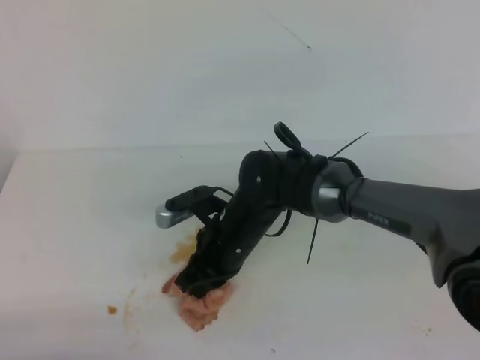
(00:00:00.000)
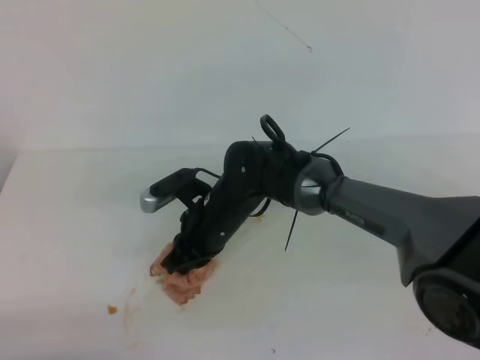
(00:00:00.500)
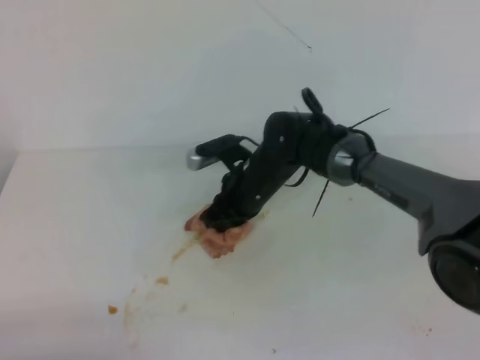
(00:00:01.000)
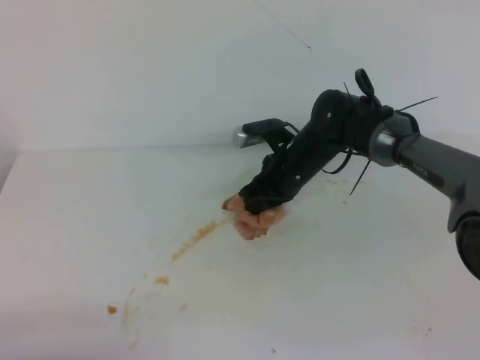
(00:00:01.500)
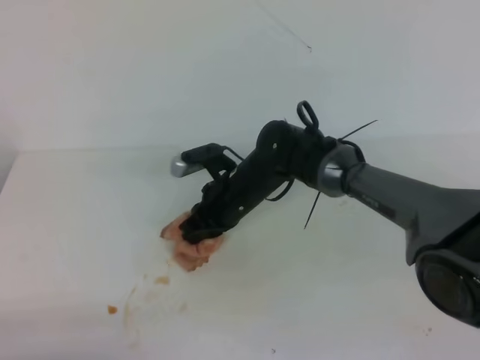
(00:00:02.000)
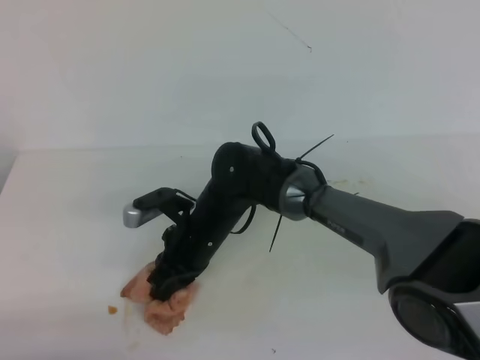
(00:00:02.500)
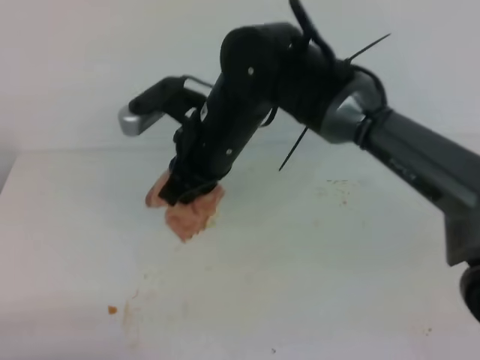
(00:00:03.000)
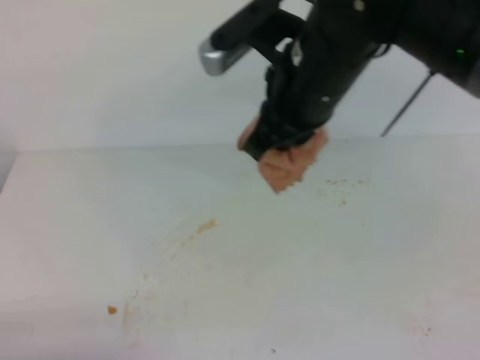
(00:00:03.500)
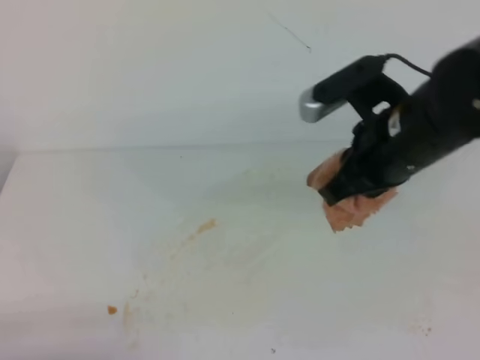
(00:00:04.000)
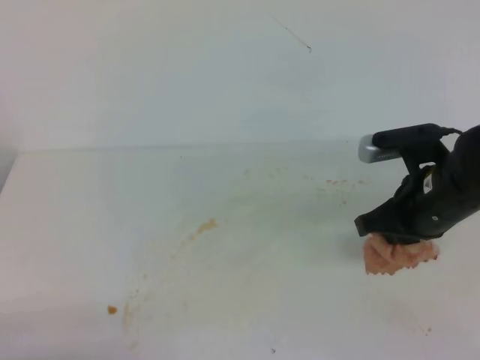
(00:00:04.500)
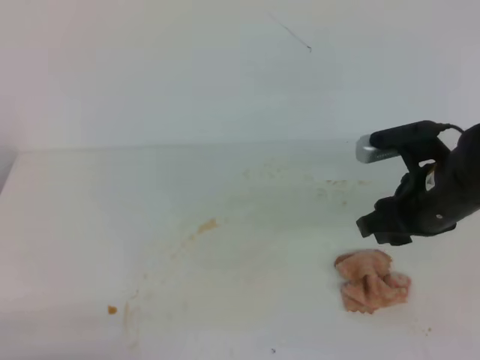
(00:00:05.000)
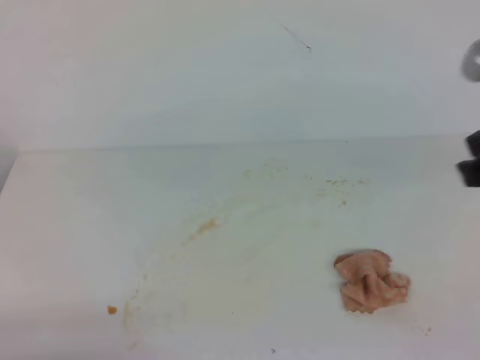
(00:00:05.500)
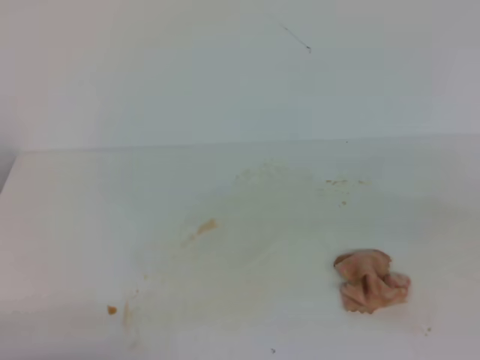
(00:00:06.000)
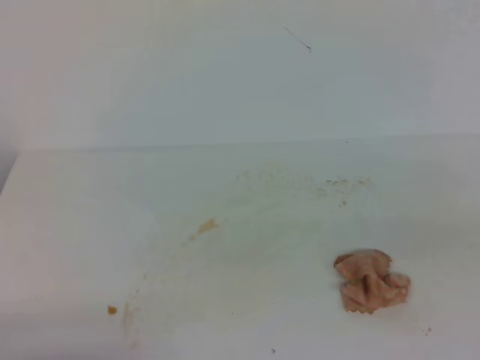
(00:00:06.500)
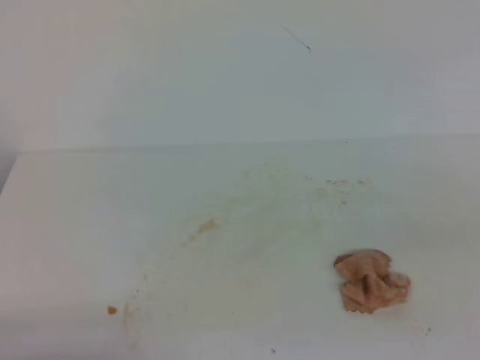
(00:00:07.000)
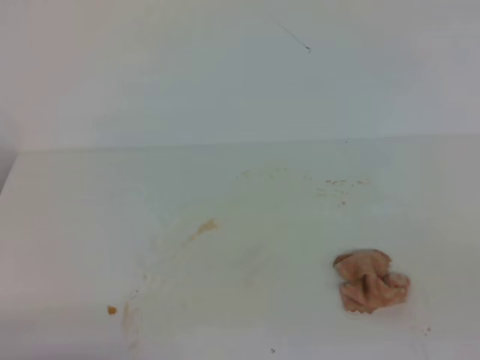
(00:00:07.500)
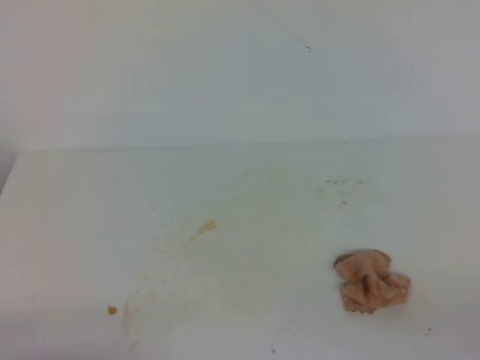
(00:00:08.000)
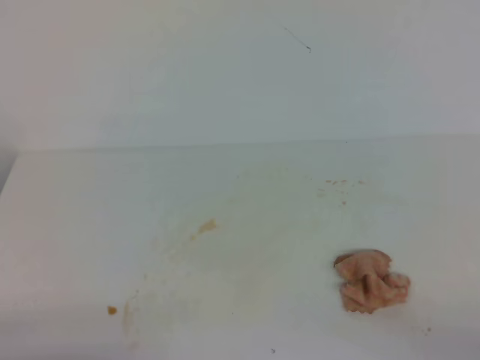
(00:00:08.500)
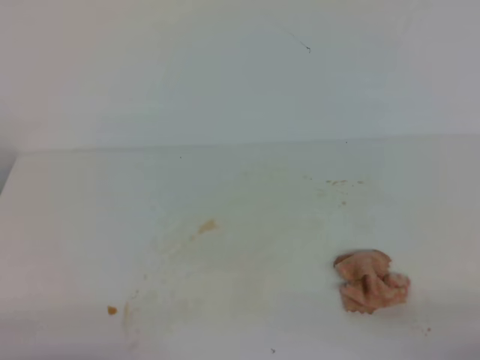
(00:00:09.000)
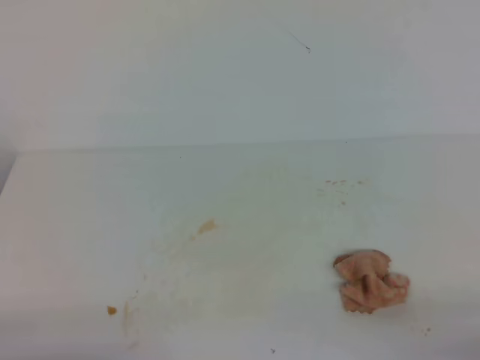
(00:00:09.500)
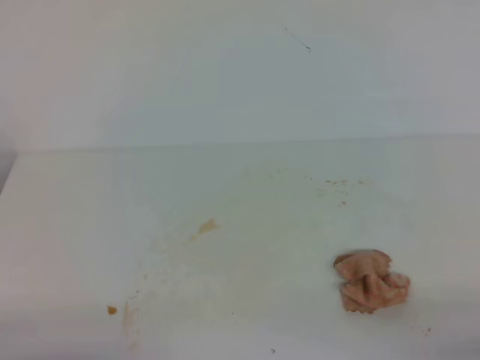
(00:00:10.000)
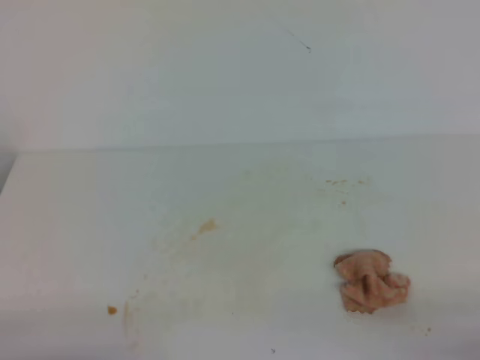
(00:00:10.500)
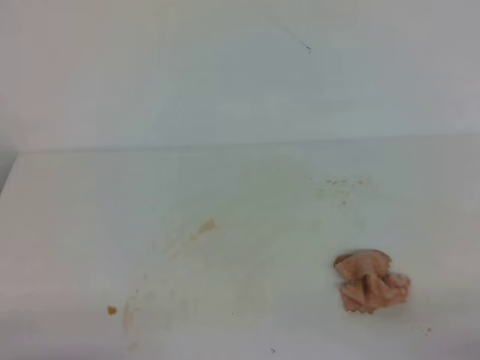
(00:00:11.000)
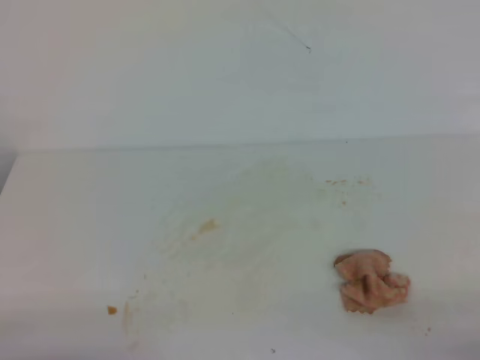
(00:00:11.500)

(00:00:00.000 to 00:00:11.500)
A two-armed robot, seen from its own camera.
00:00:00.000 - 00:00:02.000: The right gripper is displaced forward by roughly 5 cm.
00:00:02.000 - 00:00:04.000: The right gripper shifts approximately 25 cm upward, to the right and backward.
00:00:04.000 - 00:00:06.000: The right gripper is displaced backward and to the right by roughly 20 cm, and opens and closes again.
00:00:09.500 - 00:00:11.500: Neither gripper changes place.
